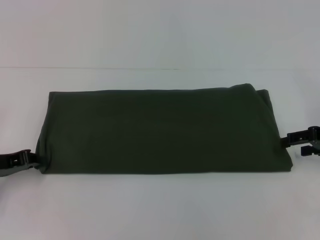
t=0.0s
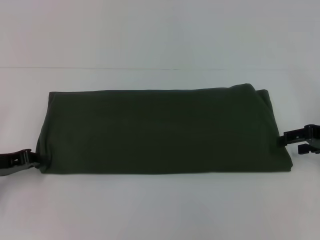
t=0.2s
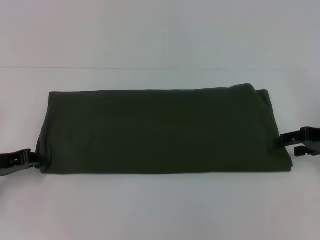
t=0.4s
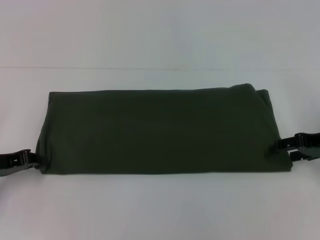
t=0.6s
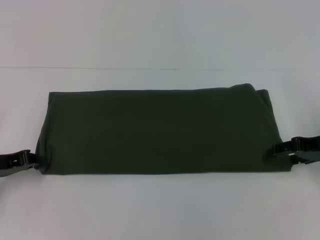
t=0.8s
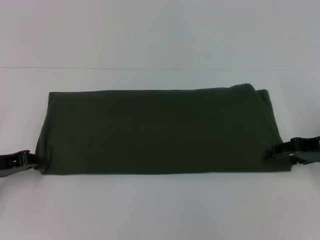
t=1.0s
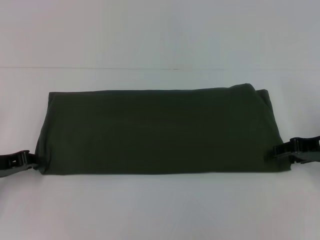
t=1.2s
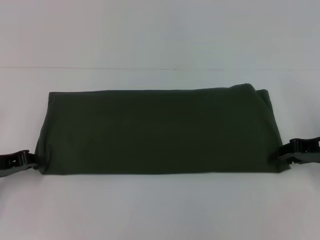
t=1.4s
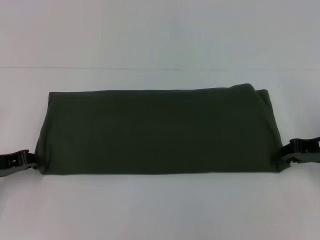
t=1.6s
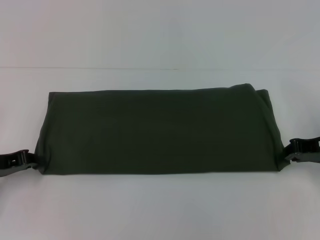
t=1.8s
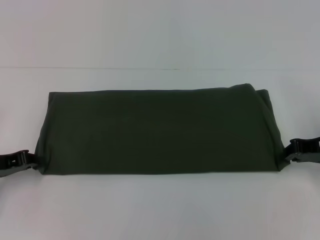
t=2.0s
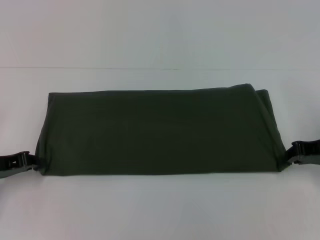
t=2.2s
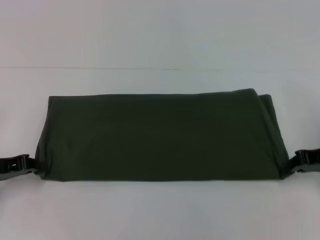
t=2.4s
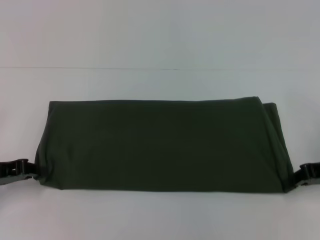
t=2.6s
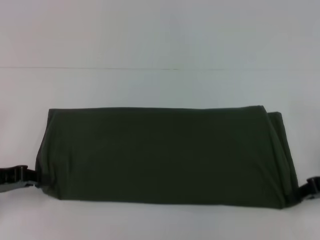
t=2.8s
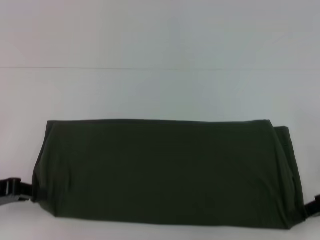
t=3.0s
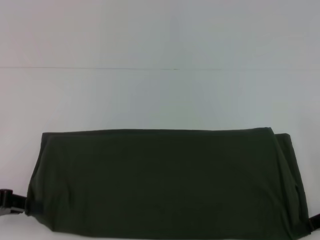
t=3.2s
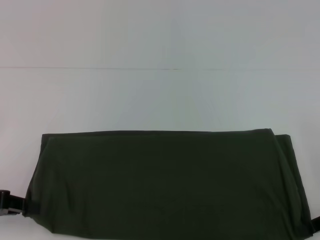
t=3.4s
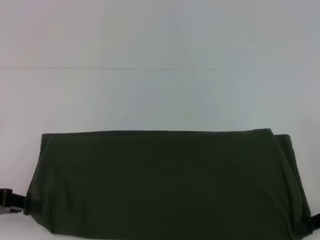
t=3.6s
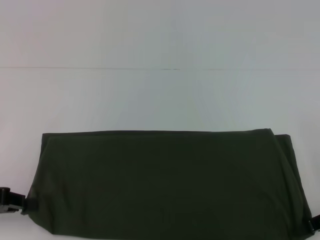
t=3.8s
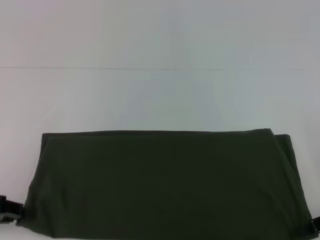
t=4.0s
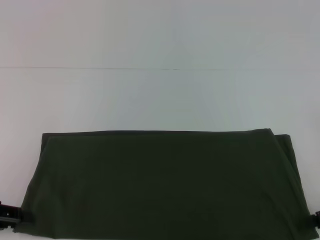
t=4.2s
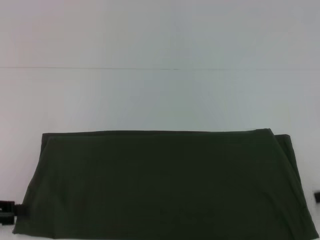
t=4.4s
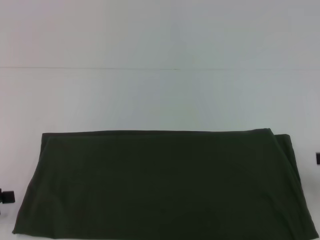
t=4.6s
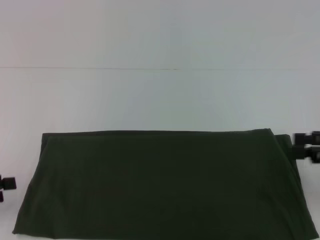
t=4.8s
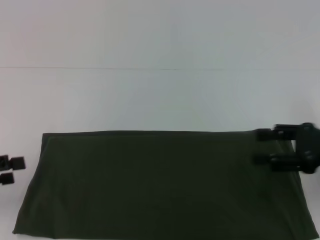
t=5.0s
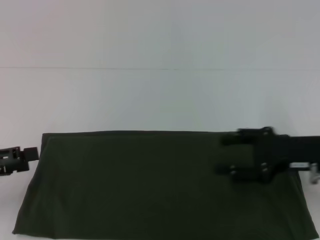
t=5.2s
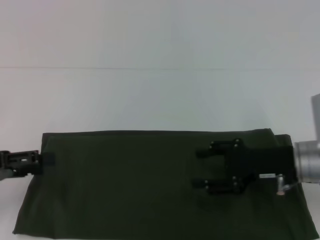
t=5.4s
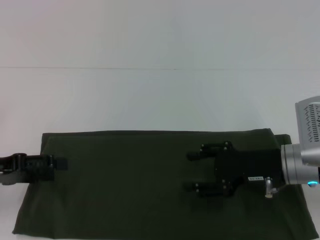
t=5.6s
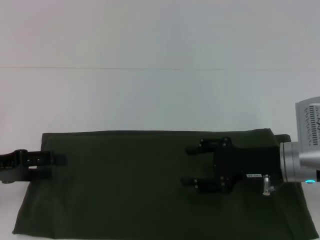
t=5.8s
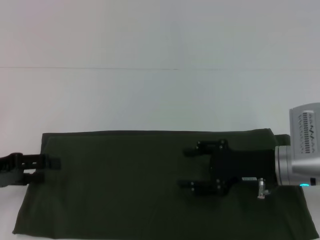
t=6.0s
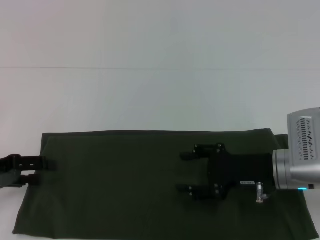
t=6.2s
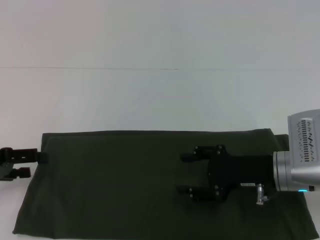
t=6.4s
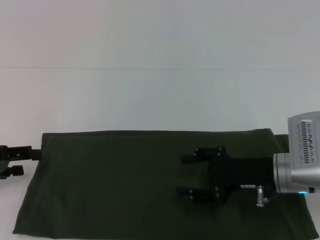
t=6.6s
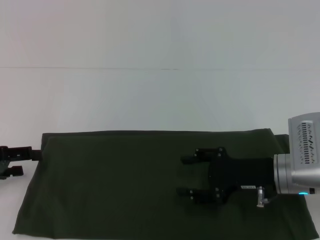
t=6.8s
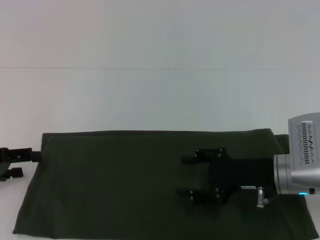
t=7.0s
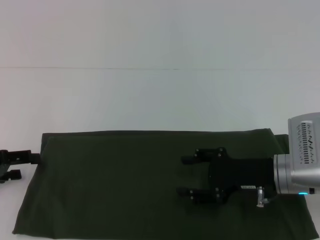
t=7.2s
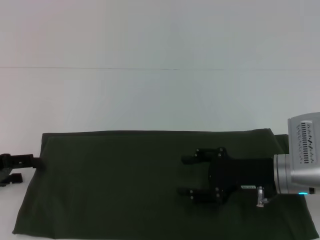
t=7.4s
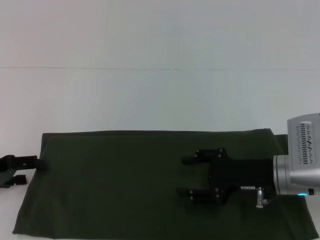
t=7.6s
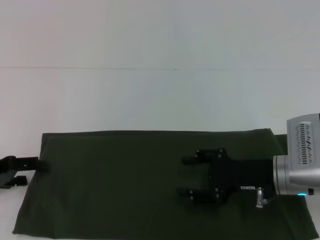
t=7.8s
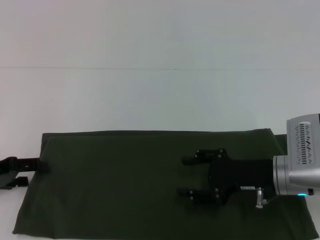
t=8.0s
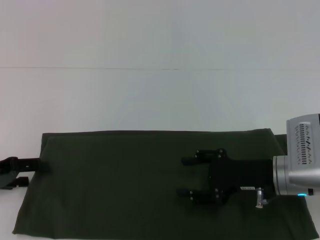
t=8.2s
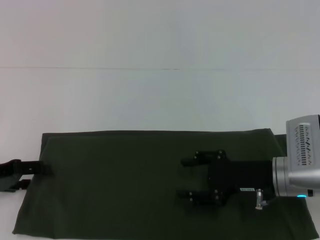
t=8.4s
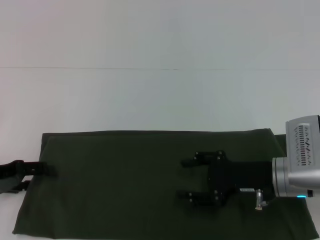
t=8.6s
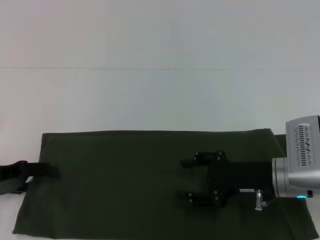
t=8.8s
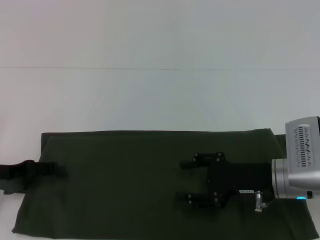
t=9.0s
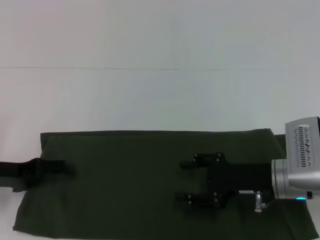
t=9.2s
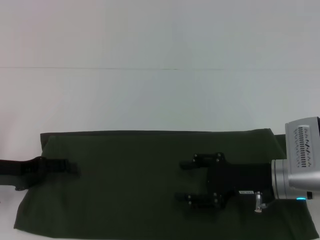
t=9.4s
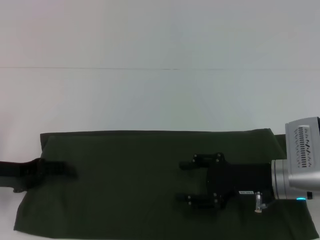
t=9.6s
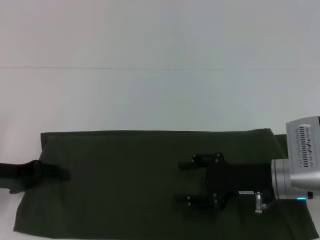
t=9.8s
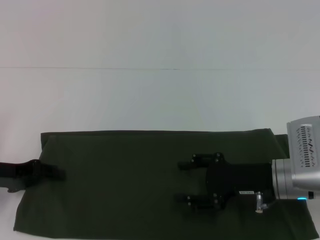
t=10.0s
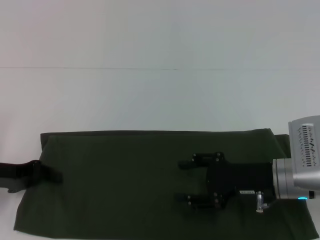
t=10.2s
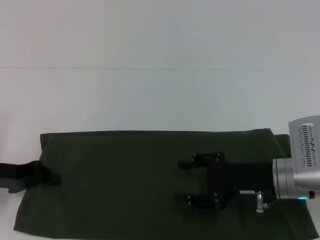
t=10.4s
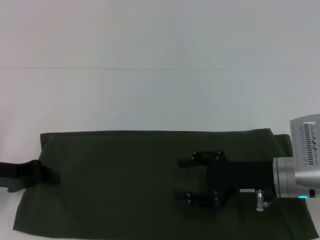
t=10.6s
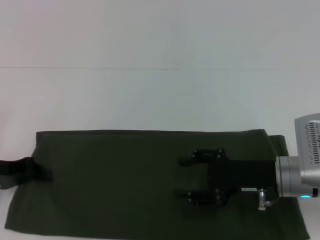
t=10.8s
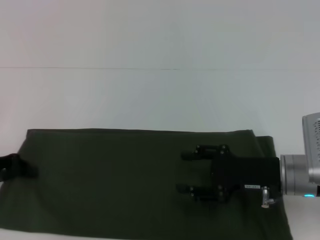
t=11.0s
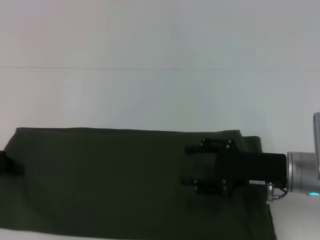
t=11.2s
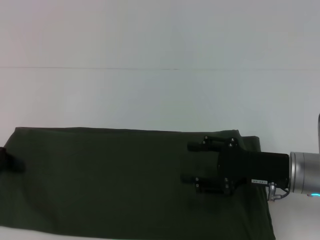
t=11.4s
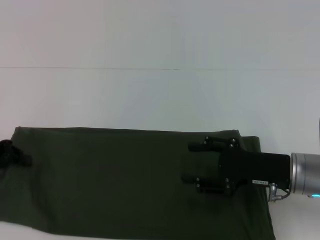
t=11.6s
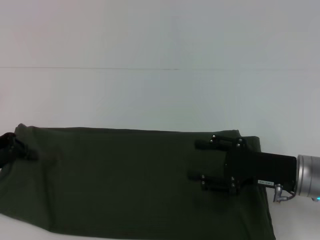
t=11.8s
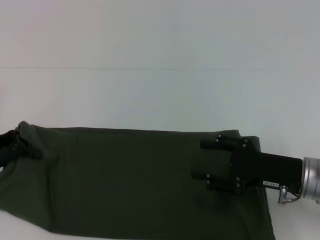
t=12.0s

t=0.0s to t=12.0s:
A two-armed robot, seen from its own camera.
Step, t=0.0s to t=4.2s: Pull the clothes with your left hand.
Step, t=0.0s to t=4.2s: Pull the clothes with your right hand.
t=0.0s to t=1.6s: The right gripper closes.
t=1.6s to t=3.0s: The right gripper travels backward by some 5 cm, and closes.
t=3.0s to t=4.4s: The right gripper goes some 5 cm to the right, and opens.
t=4.4s to t=6.0s: The left gripper is displaced forward by some 5 cm, and opens up, while the right gripper is displaced to the left by about 20 cm.
t=6.0s to t=9.0s: There are only small adjustments of the grippers.
t=10.4s to t=12.0s: The left gripper travels upward by about 5 cm.

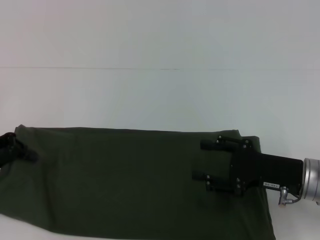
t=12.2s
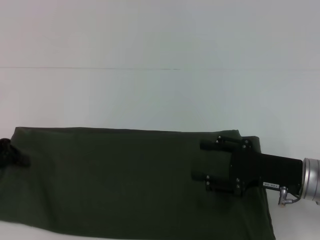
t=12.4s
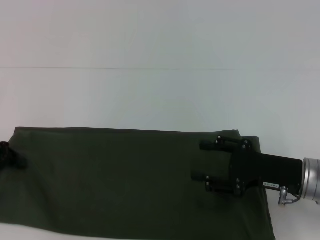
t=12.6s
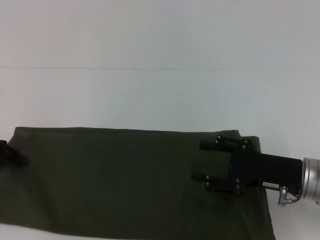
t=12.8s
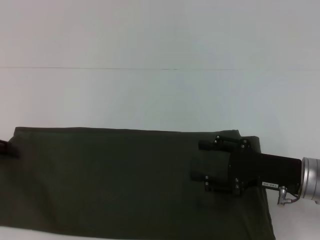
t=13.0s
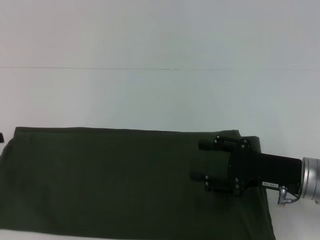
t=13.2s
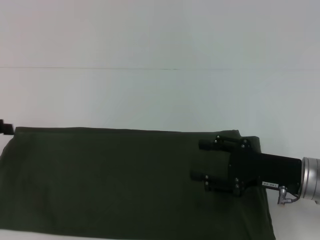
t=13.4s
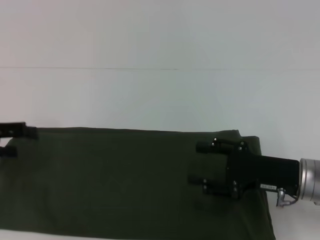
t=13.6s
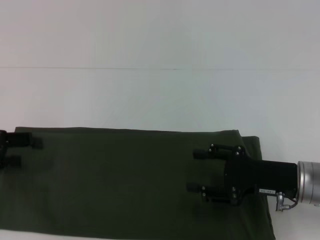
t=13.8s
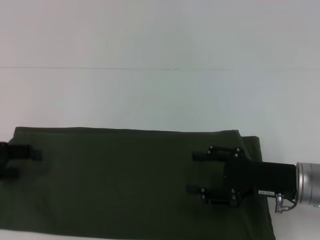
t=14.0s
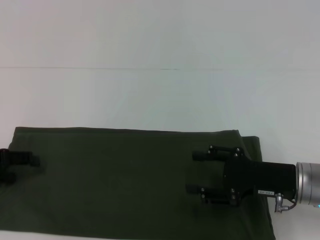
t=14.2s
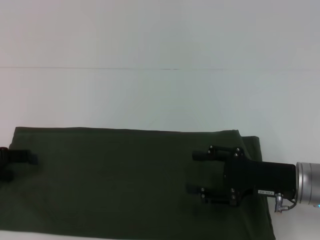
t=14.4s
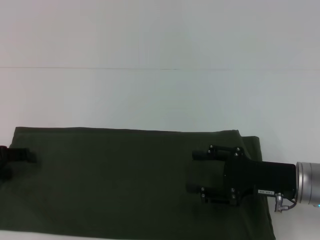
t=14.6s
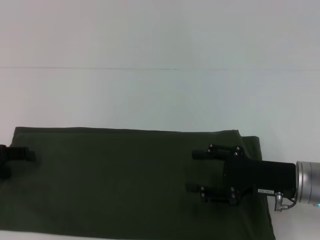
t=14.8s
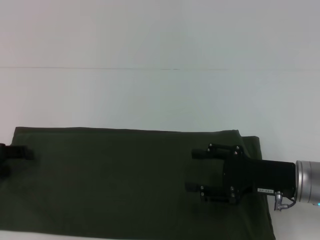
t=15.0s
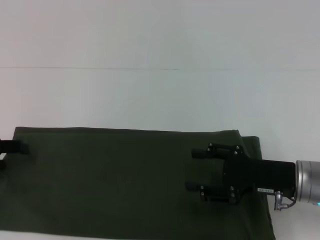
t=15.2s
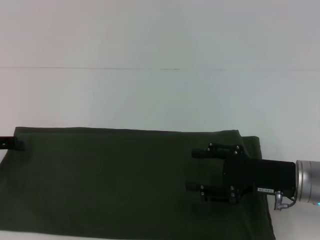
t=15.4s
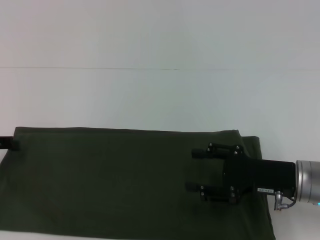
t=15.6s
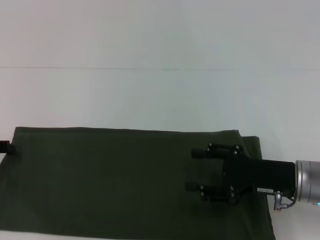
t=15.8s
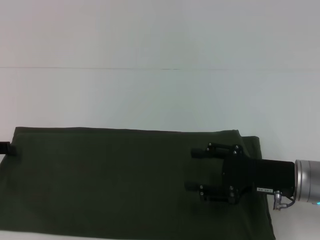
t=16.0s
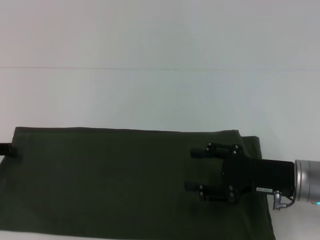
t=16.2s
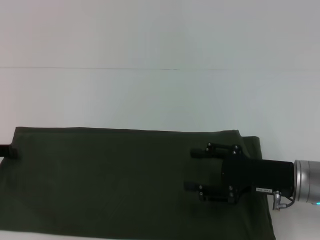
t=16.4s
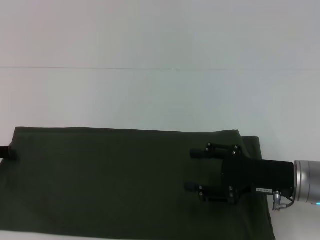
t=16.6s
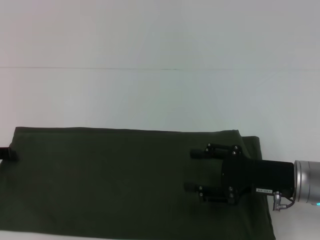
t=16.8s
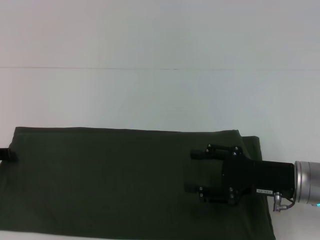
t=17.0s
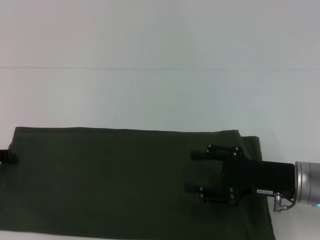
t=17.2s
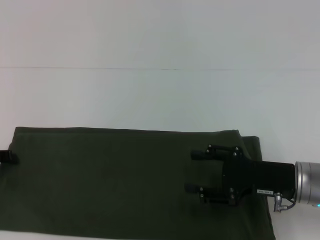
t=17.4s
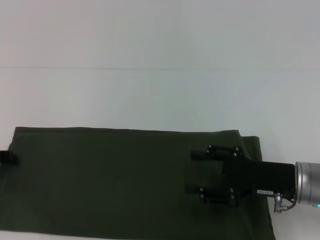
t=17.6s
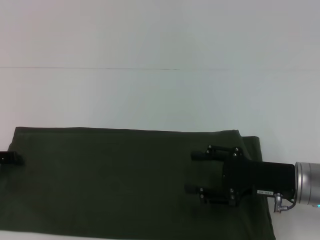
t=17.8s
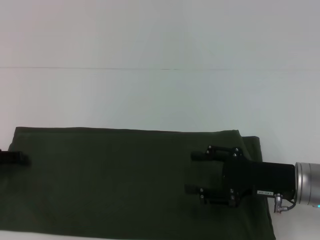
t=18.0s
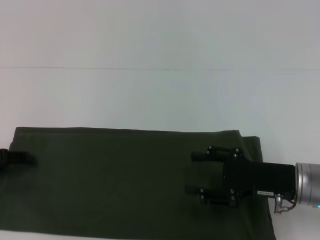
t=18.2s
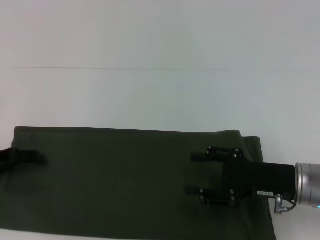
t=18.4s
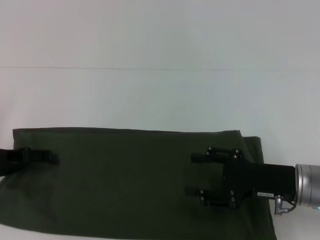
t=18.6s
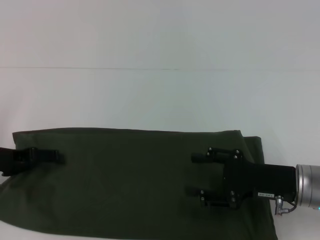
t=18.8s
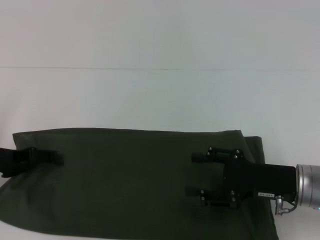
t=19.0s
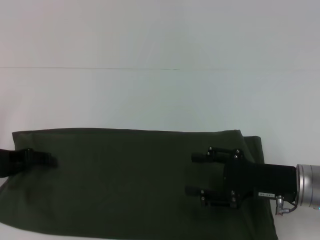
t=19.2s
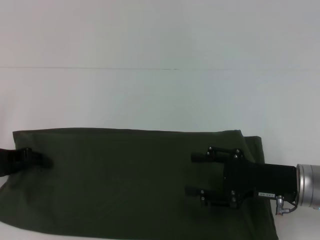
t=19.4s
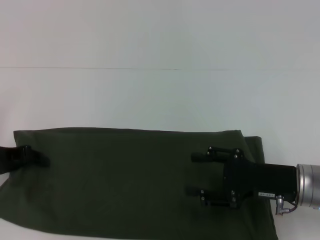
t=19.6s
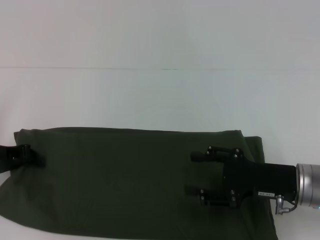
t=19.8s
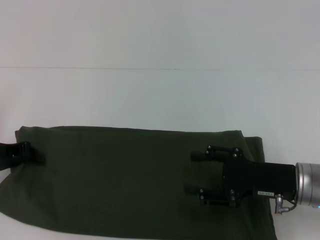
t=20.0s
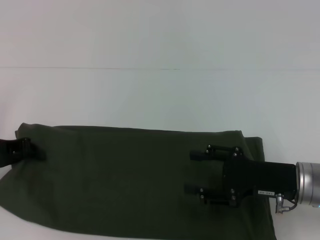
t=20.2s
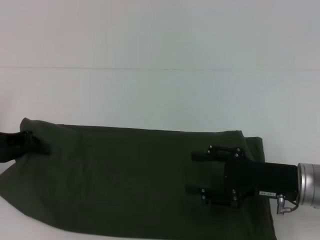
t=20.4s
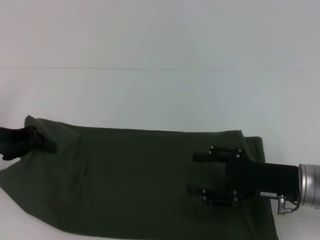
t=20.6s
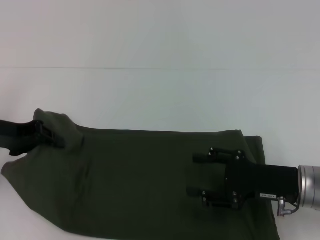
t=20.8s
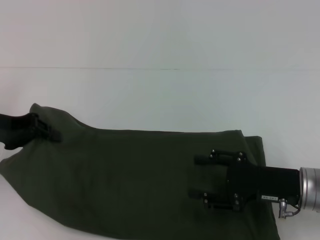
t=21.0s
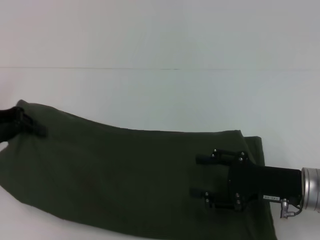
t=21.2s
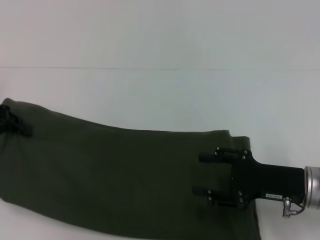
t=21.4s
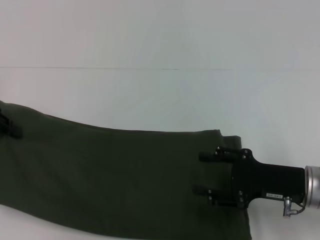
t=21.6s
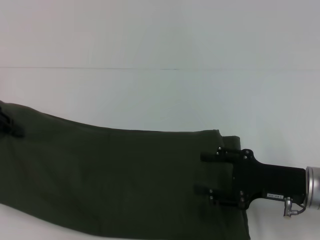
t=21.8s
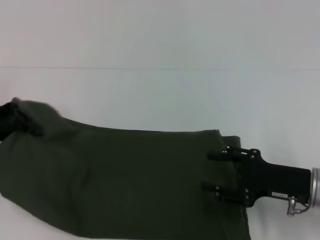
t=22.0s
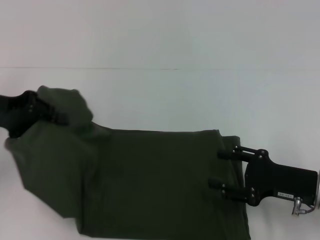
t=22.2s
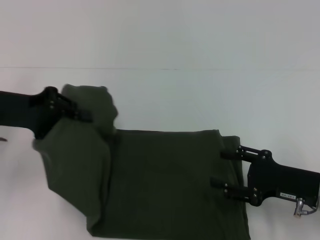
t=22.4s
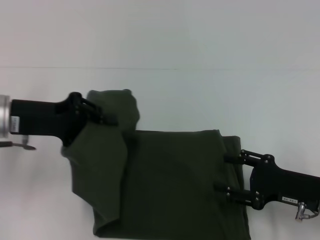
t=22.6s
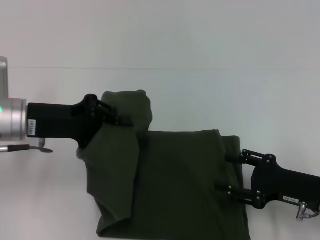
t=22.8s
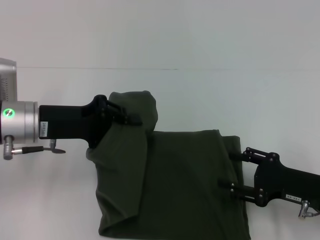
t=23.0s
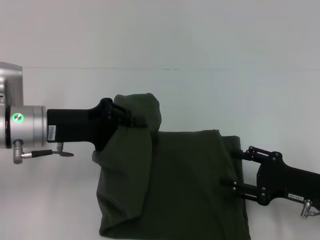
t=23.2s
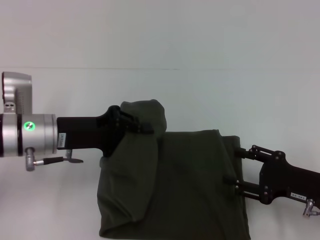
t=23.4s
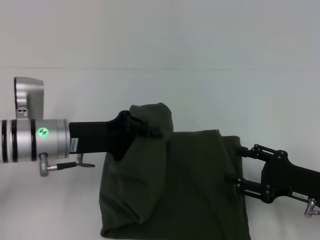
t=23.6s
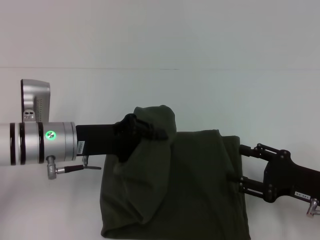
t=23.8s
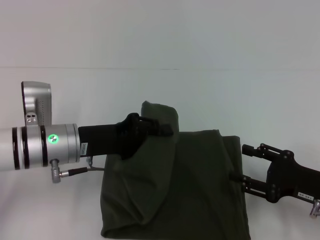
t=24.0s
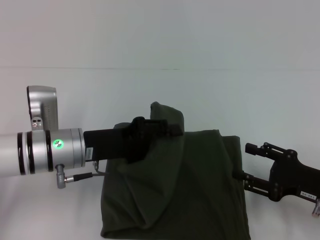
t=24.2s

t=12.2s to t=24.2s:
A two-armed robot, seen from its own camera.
t=12.2s to t=13.8s: The left gripper opens up.
t=13.8s to t=15.2s: The grippers move only a little.
t=16.6s to t=18.2s: The grippers stay close to where they were, moving slightly.
t=18.2s to t=19.8s: The left gripper closes its fingers.
t=19.8s to t=21.2s: The left gripper shifts some 5 cm upward.
t=21.2s to t=22.6s: The left gripper moves to the right, about 5 cm.
t=22.6s to t=24.2s: The left gripper travels to the right and downward by some 10 cm.
